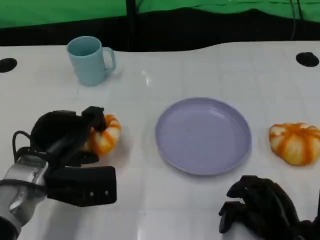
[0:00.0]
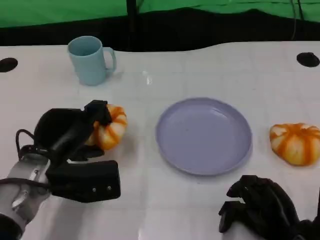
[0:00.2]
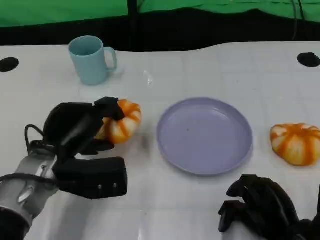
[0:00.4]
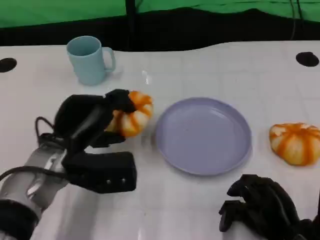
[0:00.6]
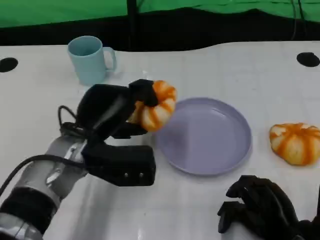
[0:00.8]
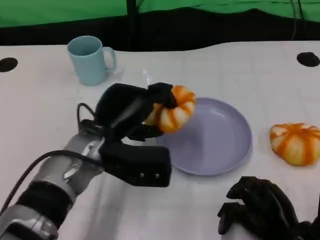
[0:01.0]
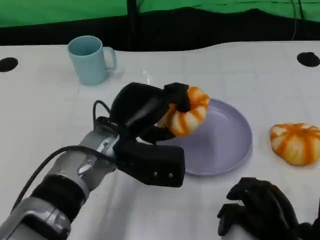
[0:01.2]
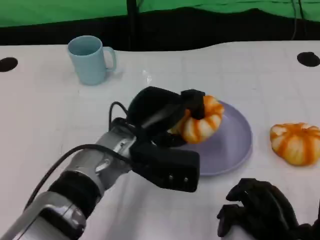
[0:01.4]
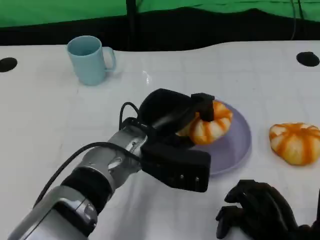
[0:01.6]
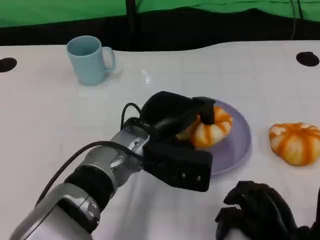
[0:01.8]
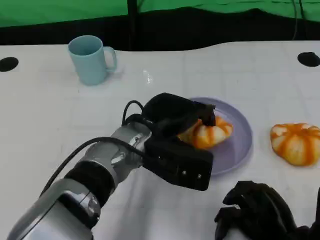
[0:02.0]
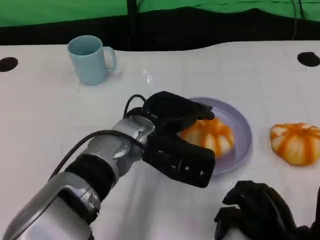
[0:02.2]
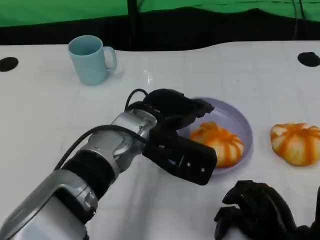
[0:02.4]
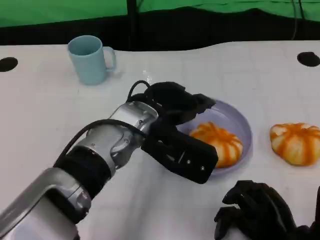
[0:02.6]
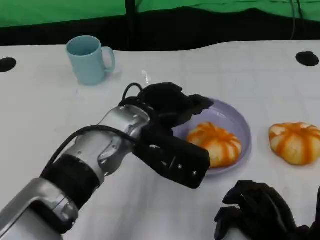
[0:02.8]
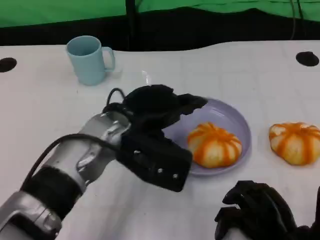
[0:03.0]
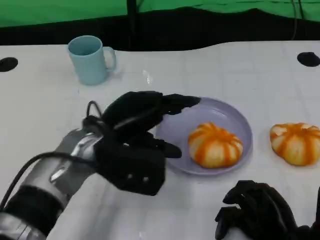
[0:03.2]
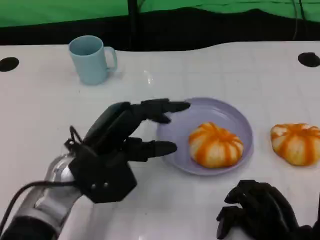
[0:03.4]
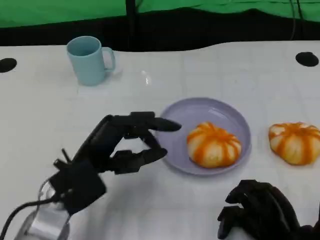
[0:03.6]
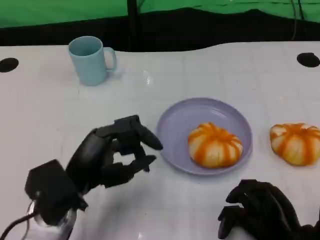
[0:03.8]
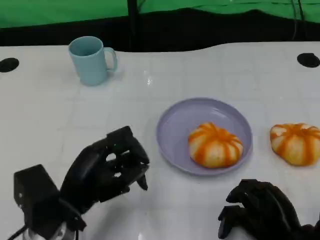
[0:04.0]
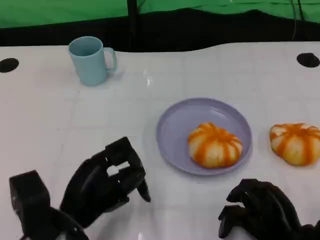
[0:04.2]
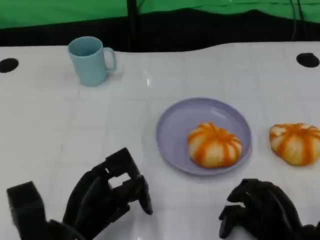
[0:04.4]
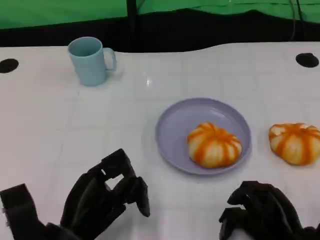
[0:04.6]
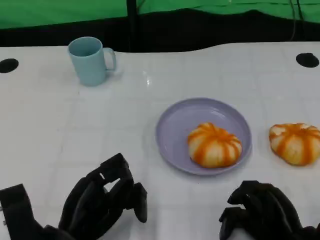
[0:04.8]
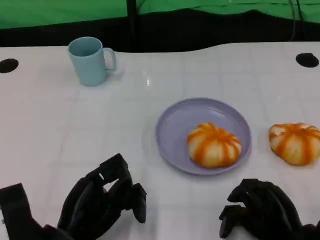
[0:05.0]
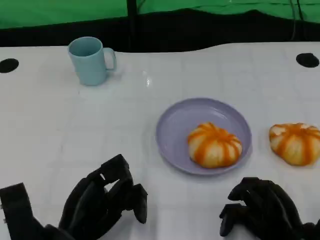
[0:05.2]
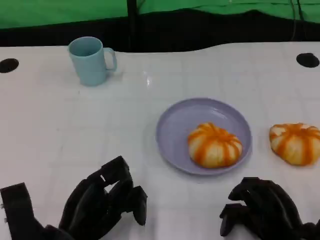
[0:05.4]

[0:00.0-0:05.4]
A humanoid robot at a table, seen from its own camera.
Task of the whole recording: Grasp the bread from the table and place it into the plate.
0:00.0 to 0:01.4: The left hand travels to the right by roughly 15 cm.
0:02.8 to 0:04.0: The left hand travels to the left, backward and downward by roughly 15 cm.

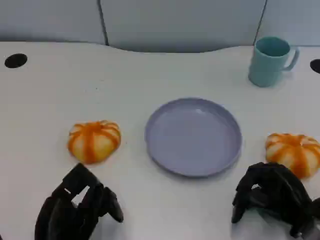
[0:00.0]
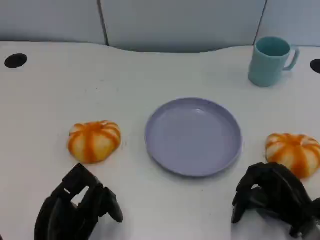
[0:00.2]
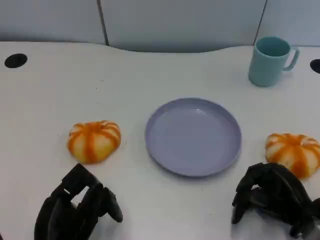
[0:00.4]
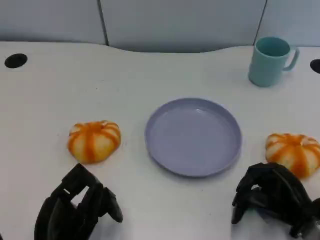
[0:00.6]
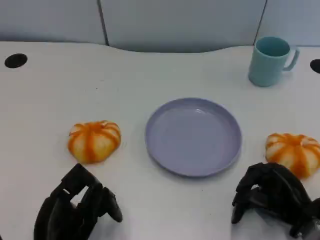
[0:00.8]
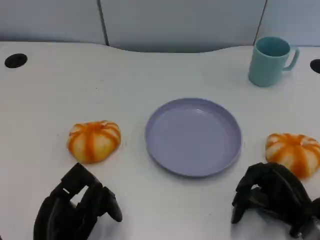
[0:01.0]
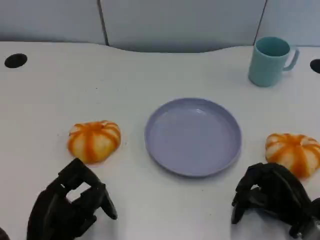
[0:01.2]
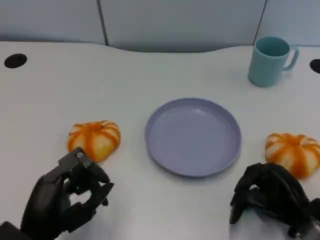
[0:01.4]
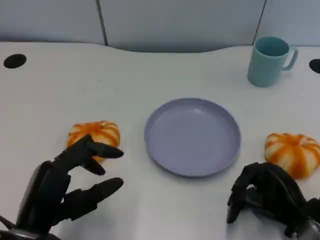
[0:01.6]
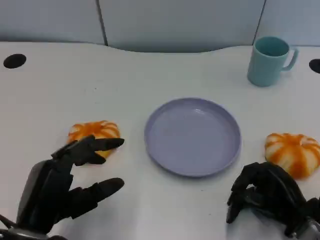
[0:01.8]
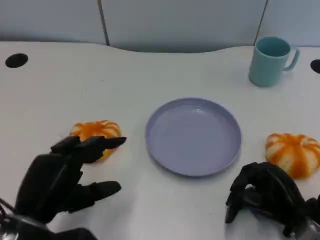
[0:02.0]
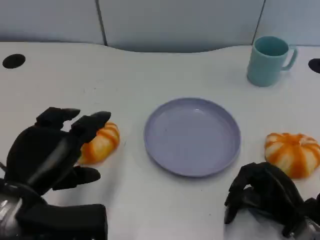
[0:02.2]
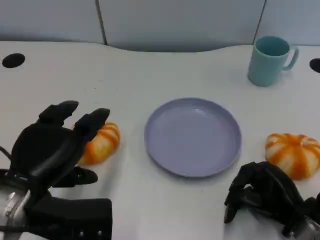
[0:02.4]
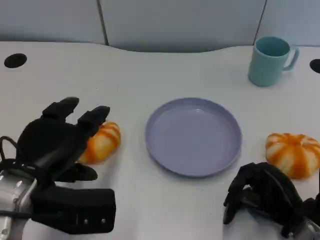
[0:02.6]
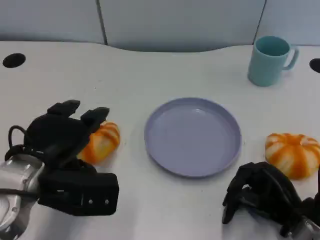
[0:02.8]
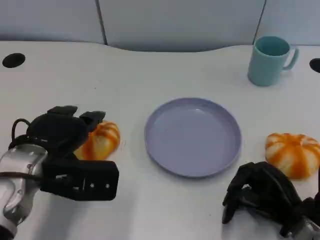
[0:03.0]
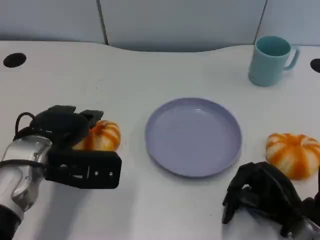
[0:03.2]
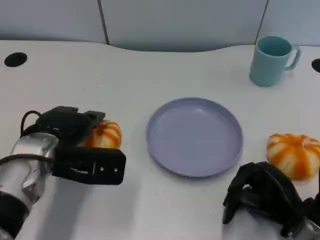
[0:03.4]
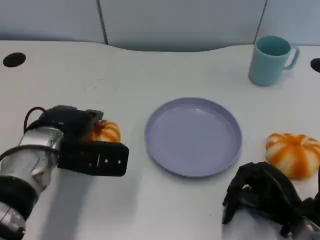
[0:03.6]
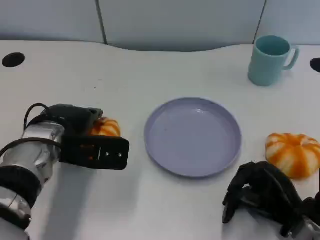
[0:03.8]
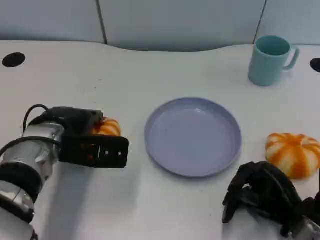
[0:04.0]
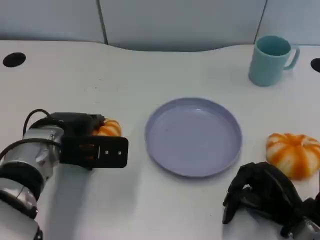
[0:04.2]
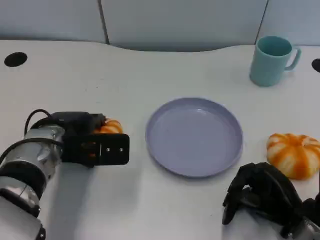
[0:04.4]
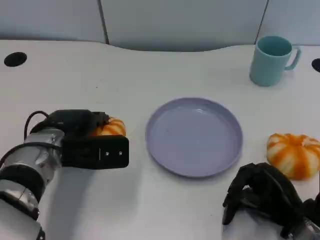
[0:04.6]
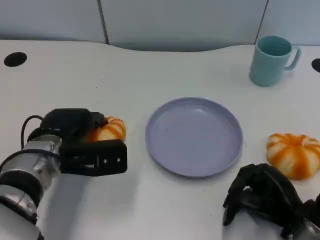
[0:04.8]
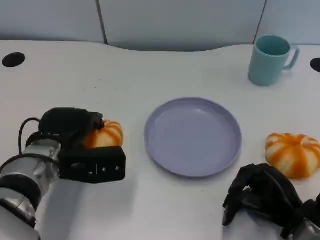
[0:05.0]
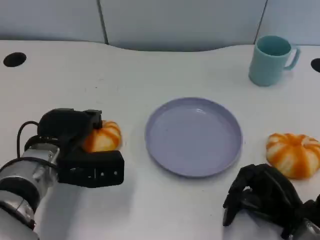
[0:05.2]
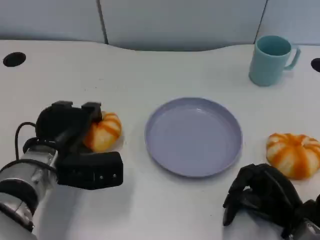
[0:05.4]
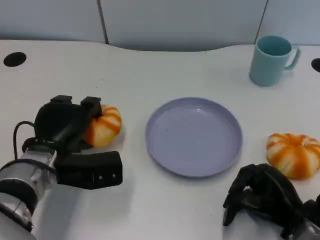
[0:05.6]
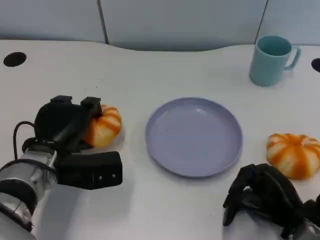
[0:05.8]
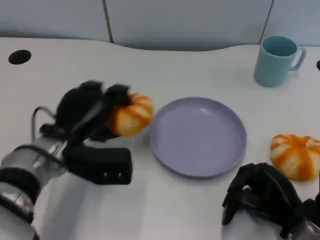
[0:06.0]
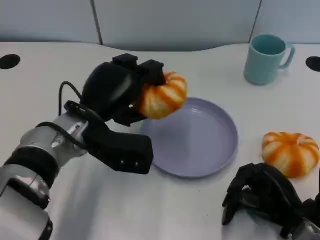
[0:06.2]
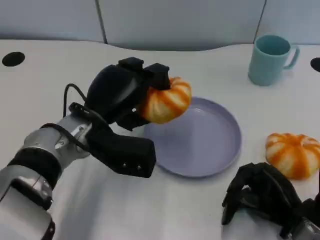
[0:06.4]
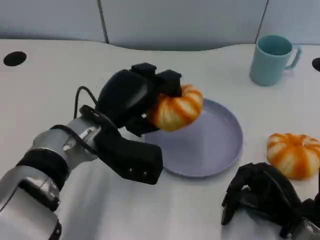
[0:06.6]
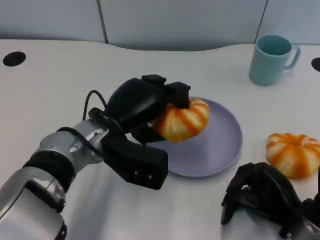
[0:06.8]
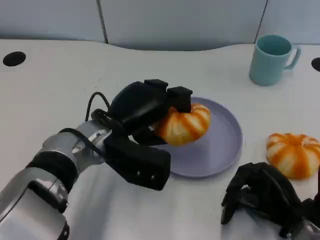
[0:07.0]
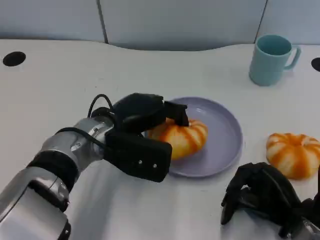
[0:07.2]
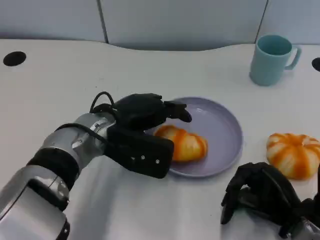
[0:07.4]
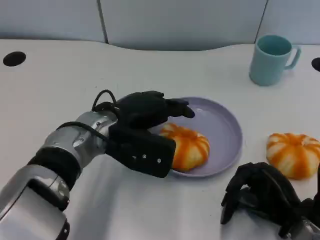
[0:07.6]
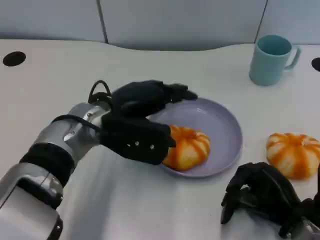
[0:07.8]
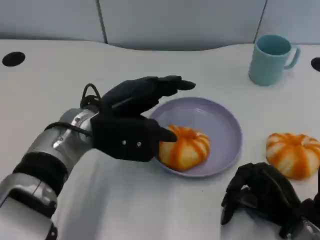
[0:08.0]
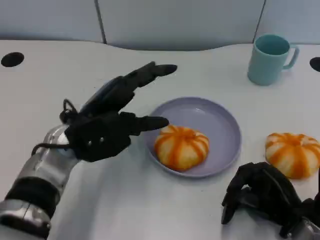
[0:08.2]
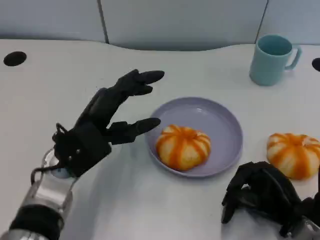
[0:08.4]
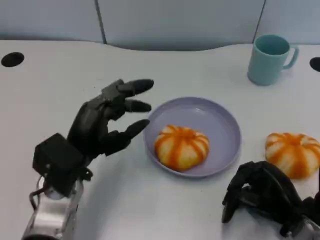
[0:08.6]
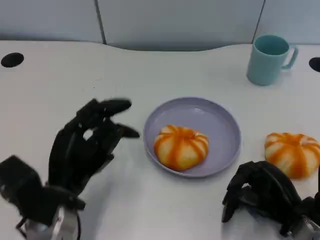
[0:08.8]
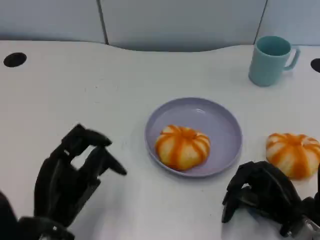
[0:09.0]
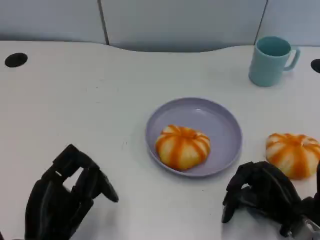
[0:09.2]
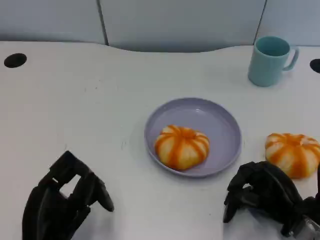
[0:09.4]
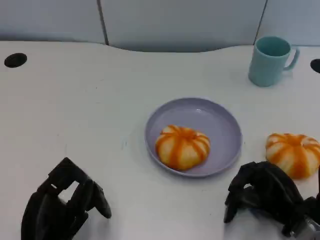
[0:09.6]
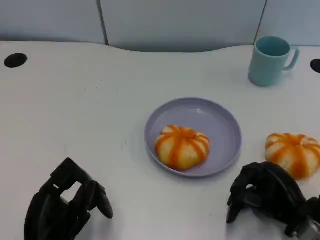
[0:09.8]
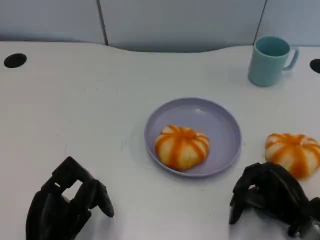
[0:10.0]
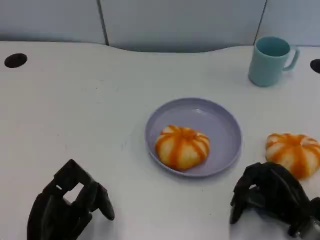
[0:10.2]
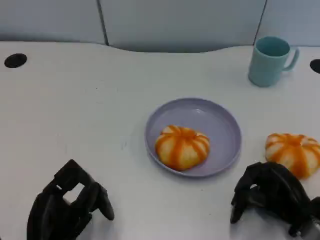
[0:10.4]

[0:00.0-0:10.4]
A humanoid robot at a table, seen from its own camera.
Task of the whole recording: Grasp the bread from the table and place it into the plate.
0:01.4 to 0:03.0: The left hand moves forward, approximately 10 cm.
0:03.0 to 0:04.4: The left hand shifts by approximately 5 cm.
0:06.0 to 0:07.4: The left hand travels to the right by approximately 5 cm.
0:07.4 to 0:09.0: The left hand moves backward and to the left, about 15 cm.
0:09.0 to 0:10.4: The hands stay close to where they were, moving slightly.
